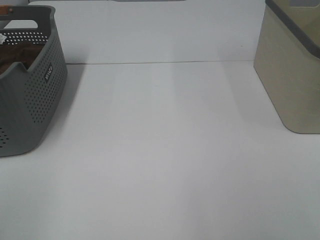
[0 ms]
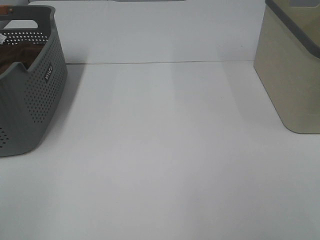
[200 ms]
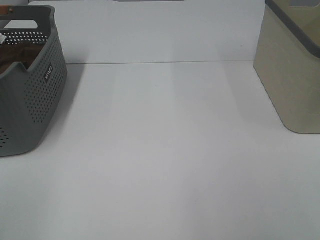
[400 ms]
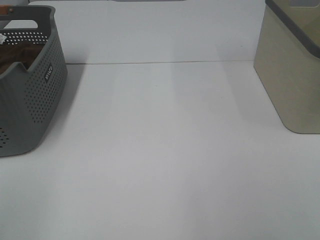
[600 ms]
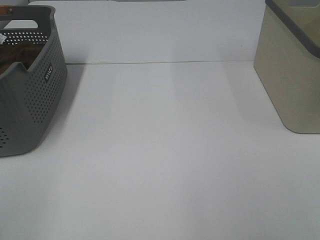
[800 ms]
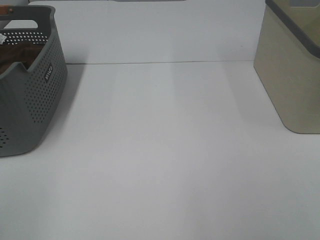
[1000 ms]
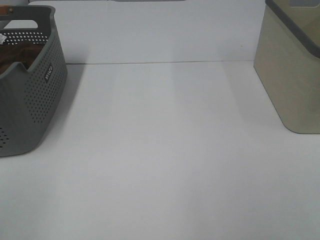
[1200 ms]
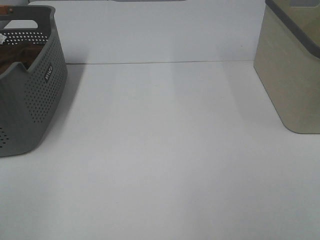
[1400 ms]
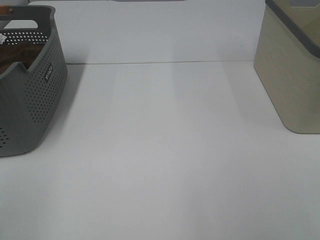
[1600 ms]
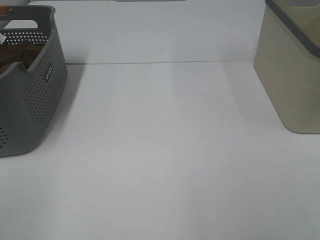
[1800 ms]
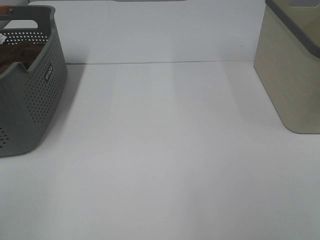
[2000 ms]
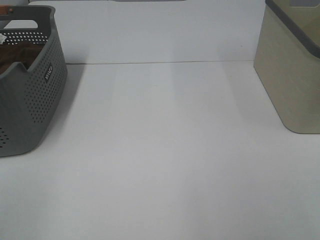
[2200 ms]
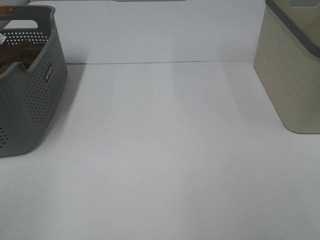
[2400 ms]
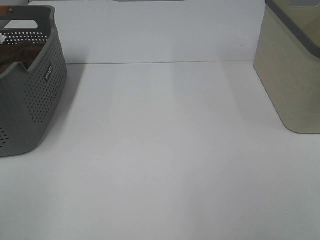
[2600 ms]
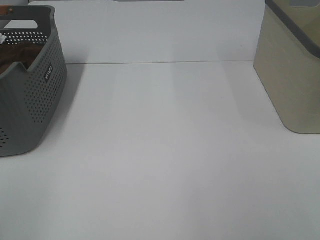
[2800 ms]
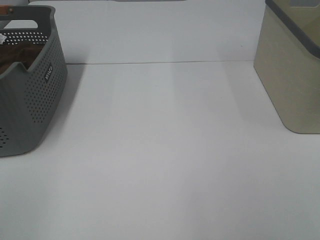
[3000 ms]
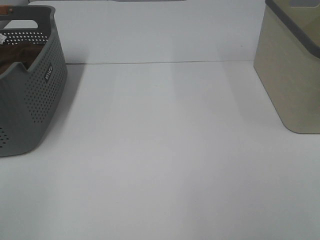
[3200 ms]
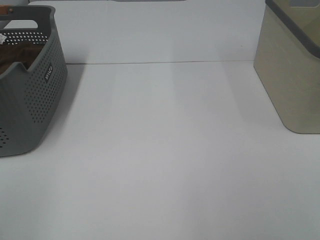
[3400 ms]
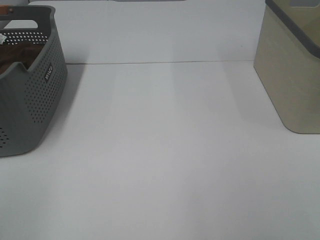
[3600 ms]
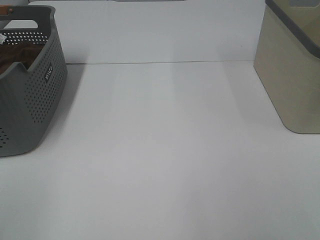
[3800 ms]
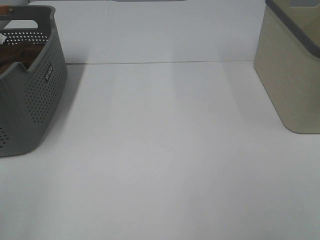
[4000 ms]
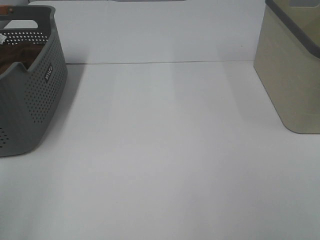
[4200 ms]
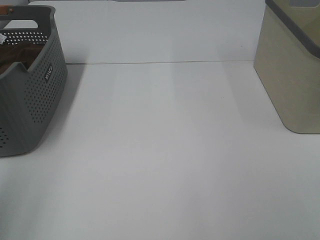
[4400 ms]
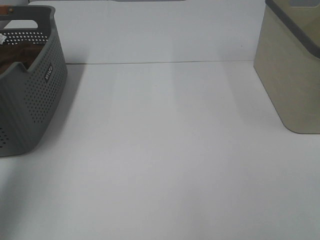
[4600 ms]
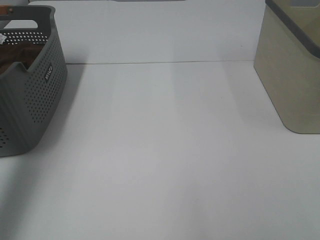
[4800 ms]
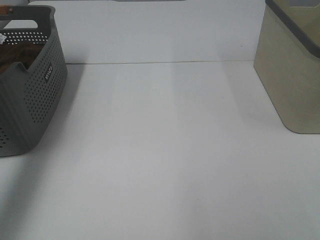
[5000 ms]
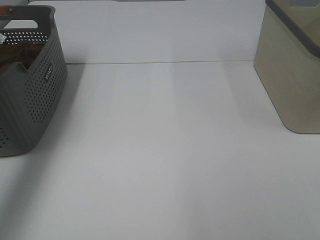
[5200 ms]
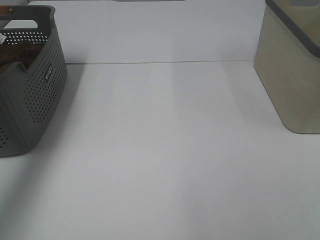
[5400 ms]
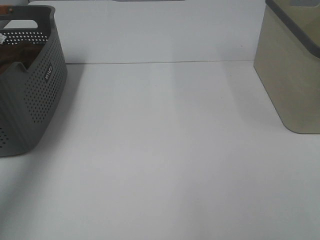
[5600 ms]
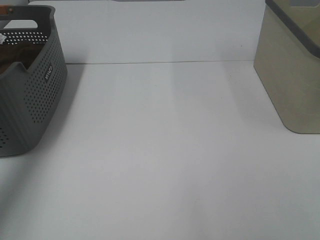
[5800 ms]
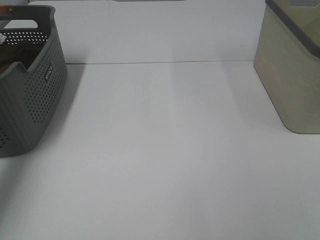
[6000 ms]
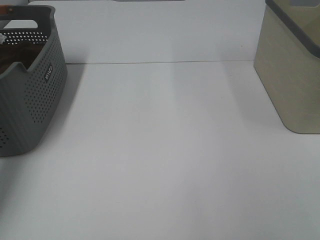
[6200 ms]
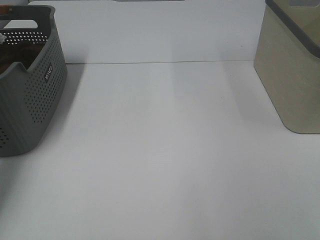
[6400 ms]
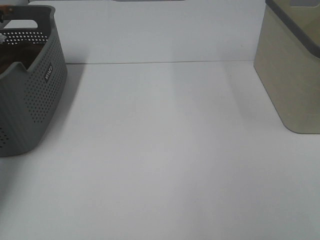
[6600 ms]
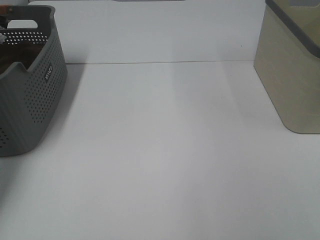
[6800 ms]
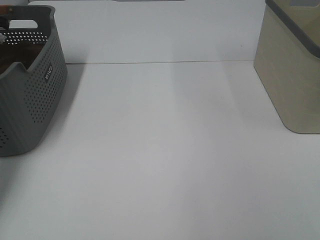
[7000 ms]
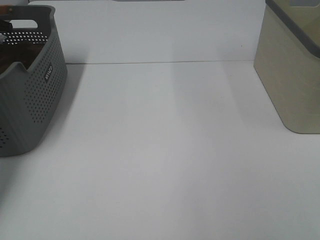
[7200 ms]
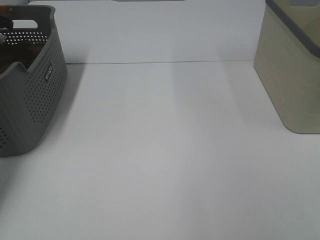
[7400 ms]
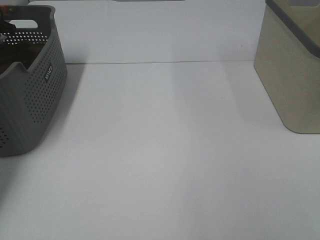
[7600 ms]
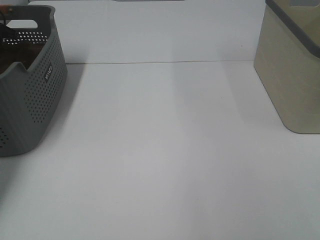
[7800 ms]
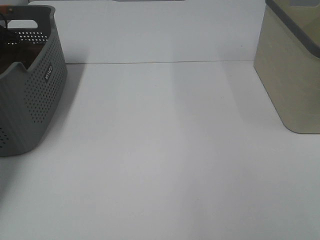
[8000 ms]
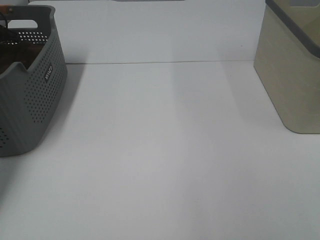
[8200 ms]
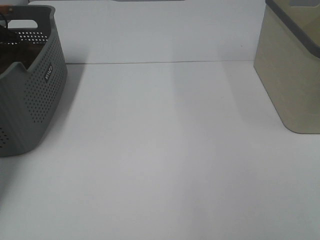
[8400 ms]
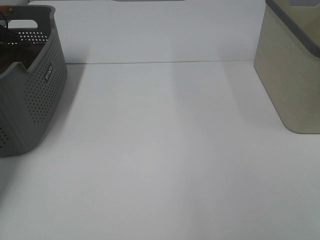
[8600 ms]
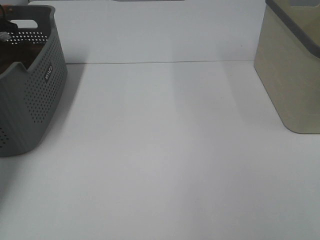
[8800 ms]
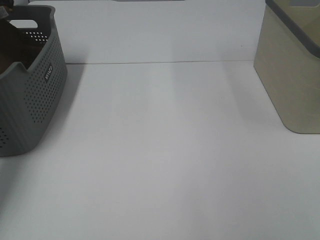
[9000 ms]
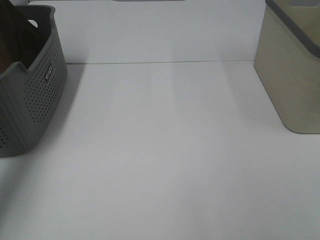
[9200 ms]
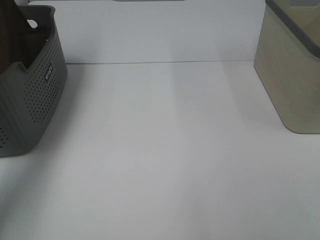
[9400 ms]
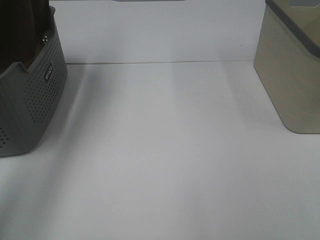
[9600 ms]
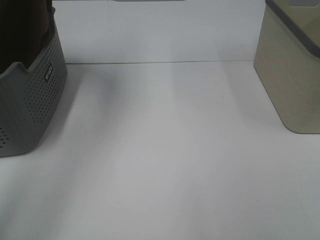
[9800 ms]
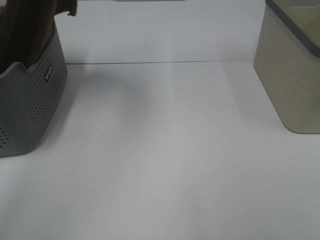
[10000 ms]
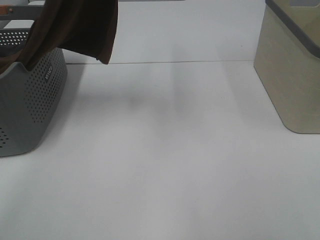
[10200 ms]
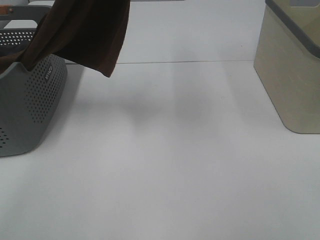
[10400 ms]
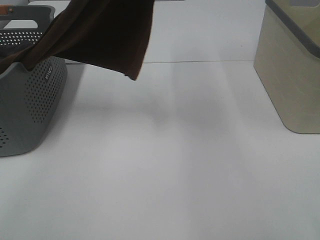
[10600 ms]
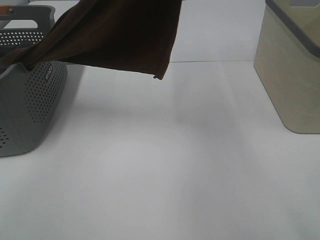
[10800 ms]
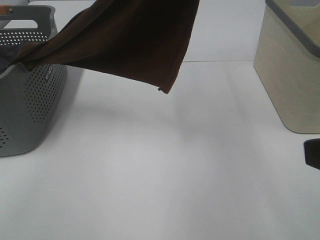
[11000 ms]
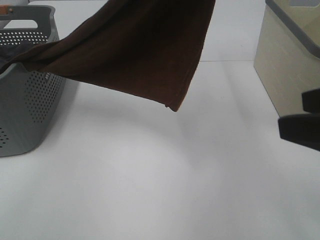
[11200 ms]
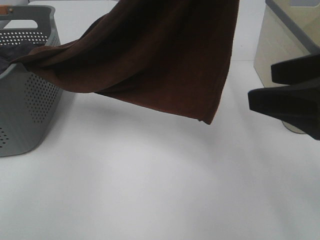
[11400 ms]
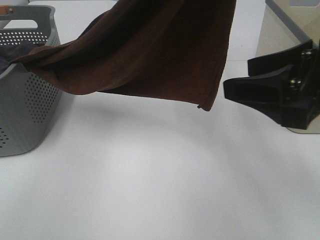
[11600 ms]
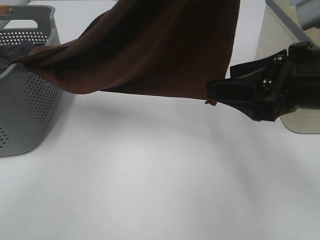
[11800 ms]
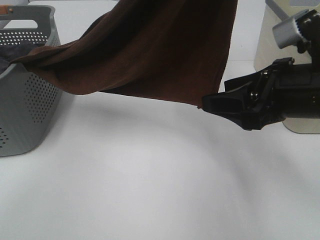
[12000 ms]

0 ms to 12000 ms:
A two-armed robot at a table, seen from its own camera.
Task of the whole recording: Remove the towel and place it.
0 ms to 3000 ms: Both grippers stay put.
4400 ms to 6000 ms: The left gripper goes roughly 40 cm forward.
6000 ms to 7600 ms: The left gripper heads downward and forward, covering approximately 15 cm.
9000 ms to 10400 ms: The left gripper goes about 40 cm to the right, backward and upward.
10400 ms to 12000 ms: The left gripper heads to the right and backward, covering about 10 cm. Meanwhile the right gripper shifts roughly 20 cm forward.

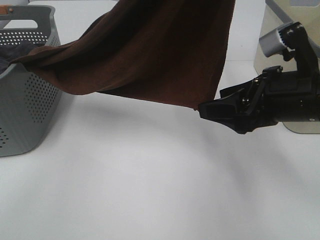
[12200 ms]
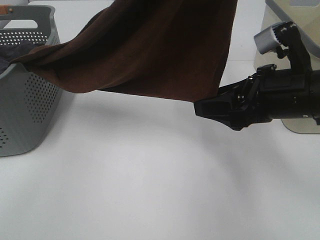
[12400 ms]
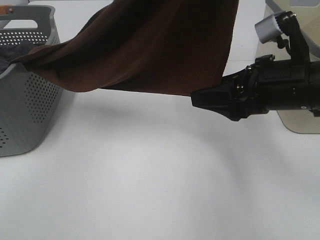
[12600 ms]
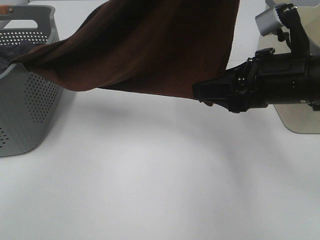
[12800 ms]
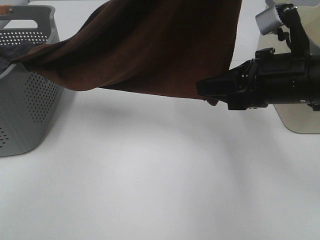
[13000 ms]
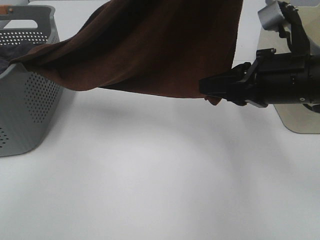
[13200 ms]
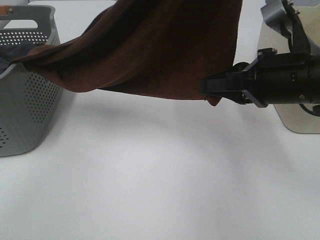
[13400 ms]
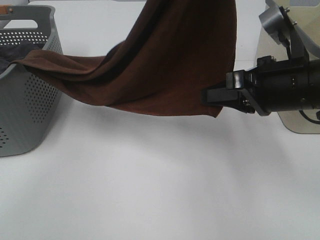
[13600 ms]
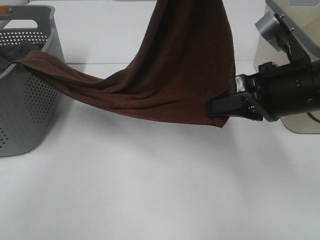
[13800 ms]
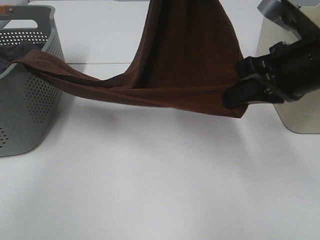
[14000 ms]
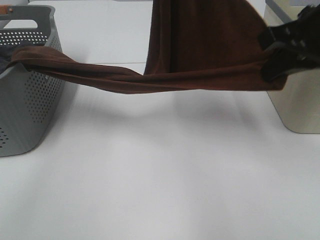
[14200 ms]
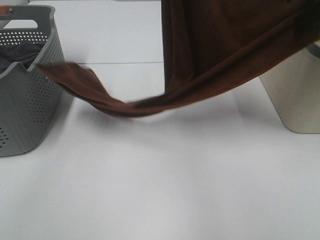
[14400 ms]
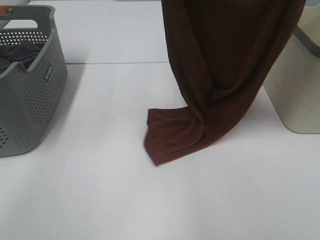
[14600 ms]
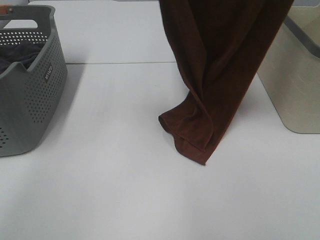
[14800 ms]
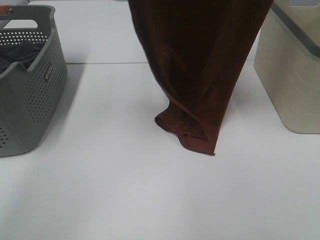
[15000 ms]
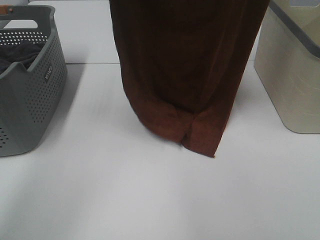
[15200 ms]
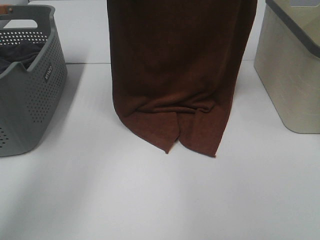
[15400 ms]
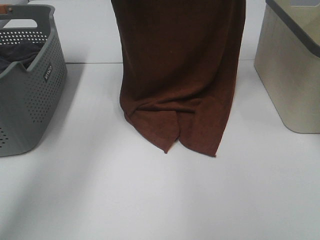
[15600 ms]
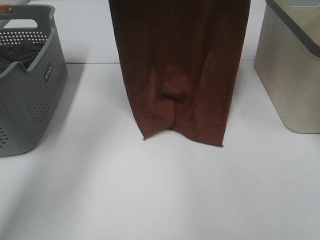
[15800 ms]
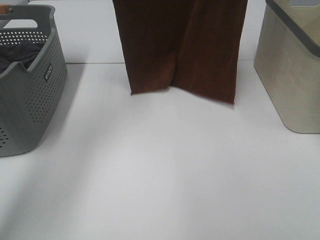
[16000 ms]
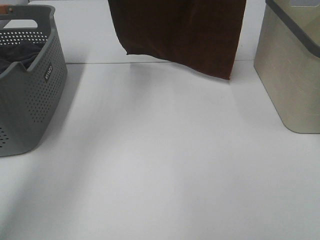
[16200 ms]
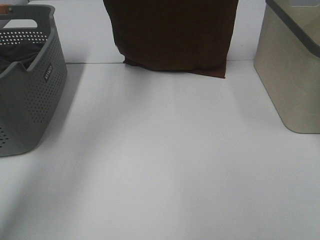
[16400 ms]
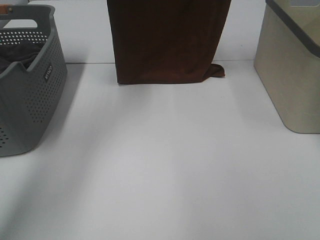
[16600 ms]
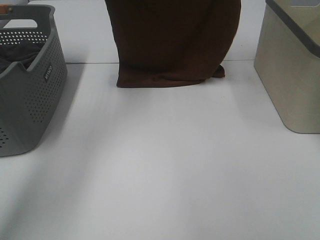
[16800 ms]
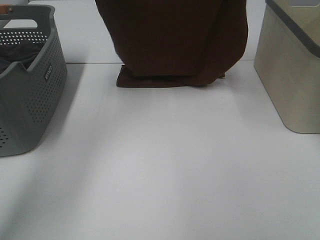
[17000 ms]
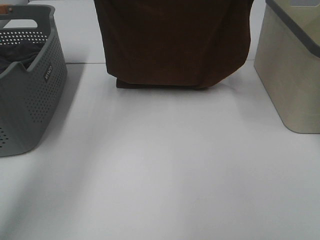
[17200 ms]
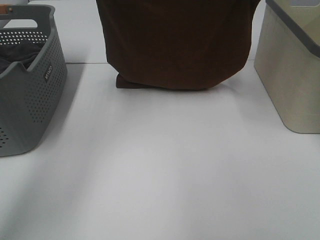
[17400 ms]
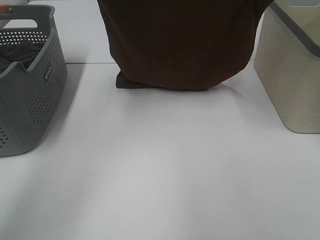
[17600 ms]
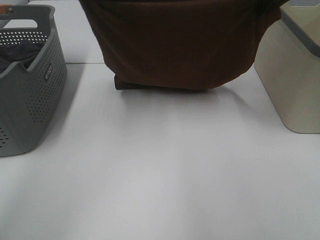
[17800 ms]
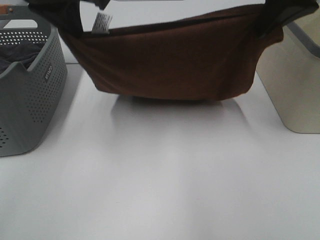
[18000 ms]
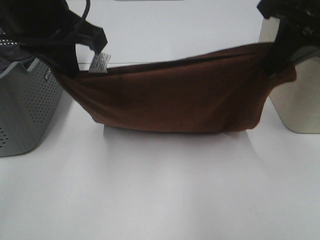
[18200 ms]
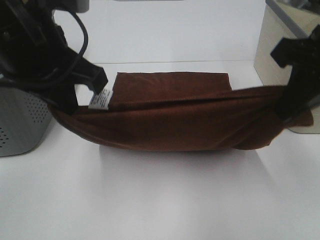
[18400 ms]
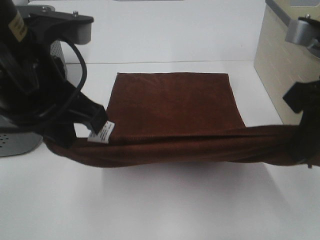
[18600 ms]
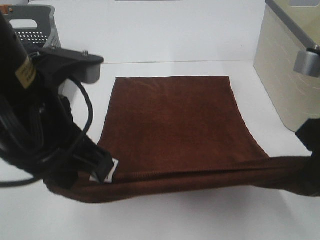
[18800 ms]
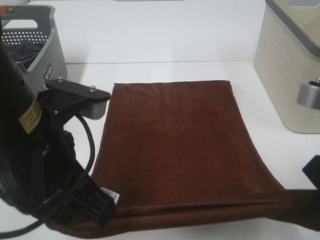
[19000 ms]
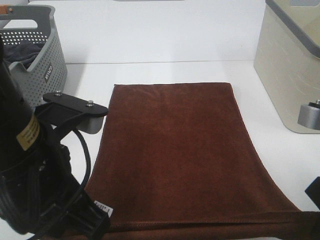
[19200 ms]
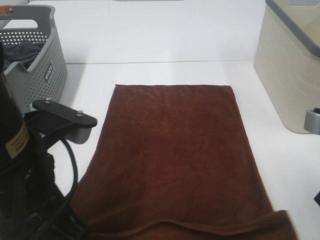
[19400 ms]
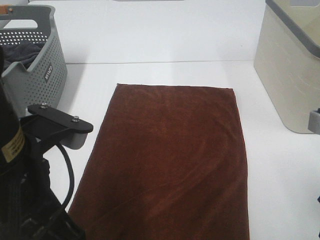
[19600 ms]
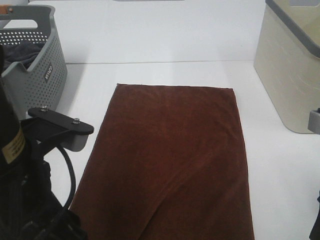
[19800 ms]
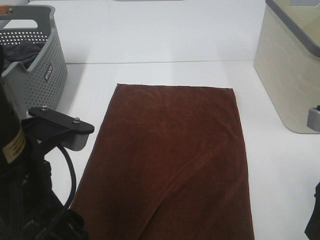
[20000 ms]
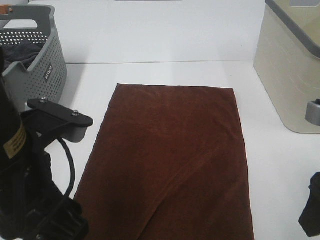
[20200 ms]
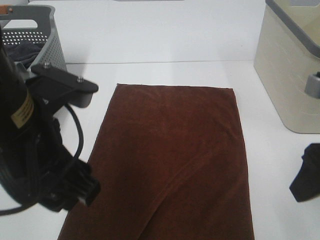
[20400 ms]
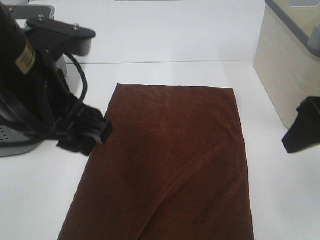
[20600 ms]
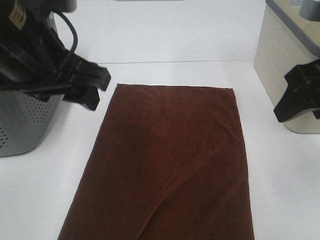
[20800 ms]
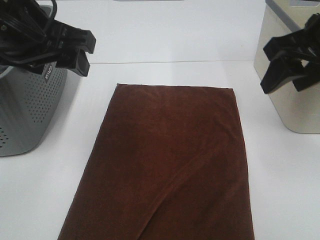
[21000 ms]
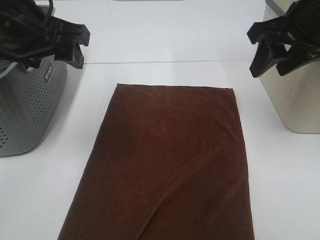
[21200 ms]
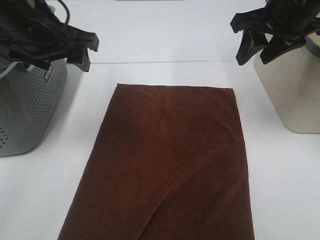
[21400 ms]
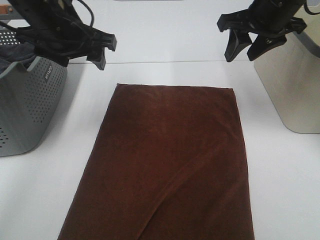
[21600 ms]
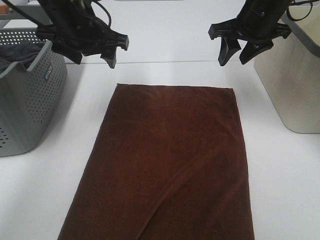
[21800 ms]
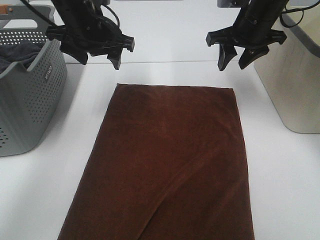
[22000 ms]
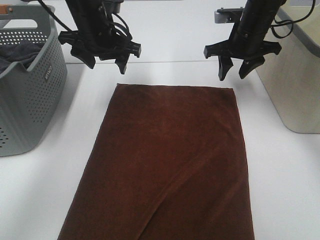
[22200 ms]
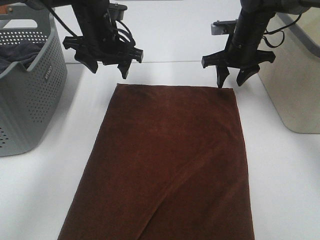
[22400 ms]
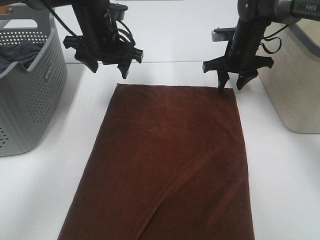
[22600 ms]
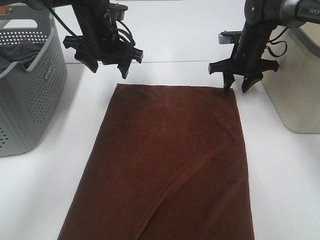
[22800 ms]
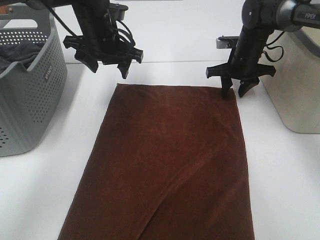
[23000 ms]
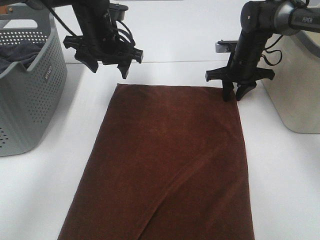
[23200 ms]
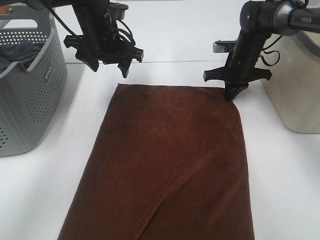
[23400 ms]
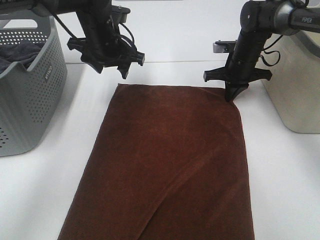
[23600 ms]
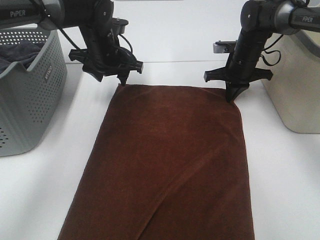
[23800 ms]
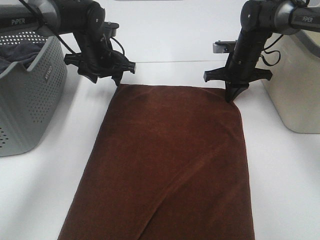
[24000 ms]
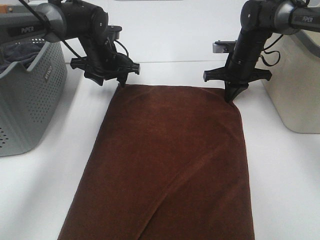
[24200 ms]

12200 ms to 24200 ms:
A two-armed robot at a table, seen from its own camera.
Task of the whole recording: Remove the towel and place it.
Step, 12600 ms to 15800 ms: Left hand: spread the brown towel flat on the table.
Step, 12600 ms to 15800 ms: Right hand: spread the brown towel flat on the table.
Step, 16000 ms to 22200 ms: Left hand:adjust the brown towel.
Step, 16000 ms to 22200 ms: Right hand:adjust the brown towel.
12200 ms to 13800 ms: The left gripper goes roughly 10 cm forward and downward; the right gripper closes up.
13800 ms to 15200 ms: The right gripper heads upward and forward, covering some 25 cm; the left gripper travels to the left, forward and upward by roughly 15 cm.
15200 ms to 16600 ms: The left gripper swings up and down, roughly 15 cm each way, with 2 reversals; the right gripper moves up and down over approximately 15 cm, changing direction 2 times.
16600 ms to 18200 ms: Both grippers travel together backward and downward, some 20 cm.
18200 ms to 19800 ms: Both grippers travel together backward and downward, approximately 15 cm. The right gripper opens up; the left gripper opens its fingers.
19800 ms to 21200 ms: Both grippers move forward, about 15 cm.
21200 ms to 22600 ms: The grippers both shift forward and downward by some 20 cm.
22600 ms to 24200 ms: The right gripper closes its fingers, while the left gripper goes some 5 cm downward.
